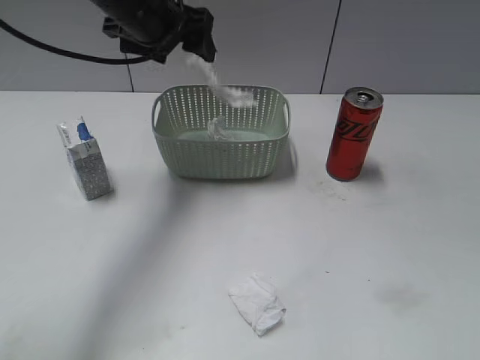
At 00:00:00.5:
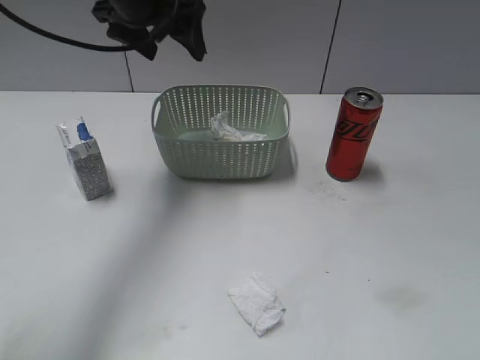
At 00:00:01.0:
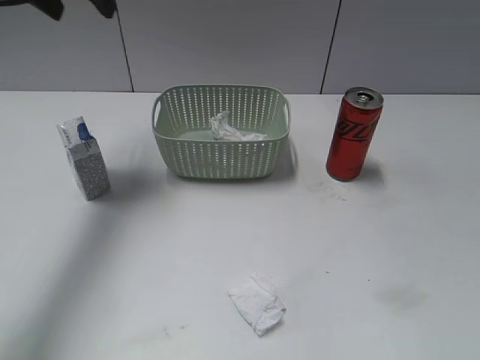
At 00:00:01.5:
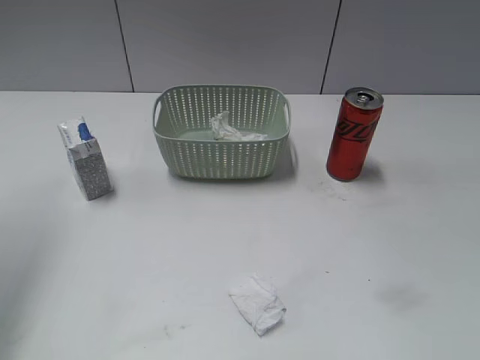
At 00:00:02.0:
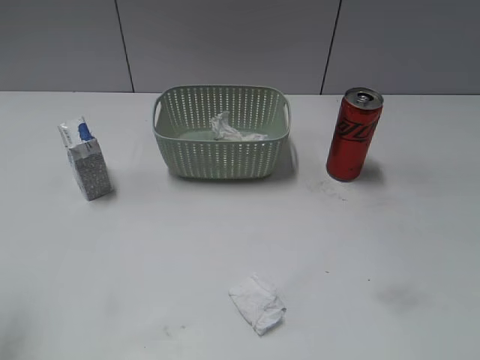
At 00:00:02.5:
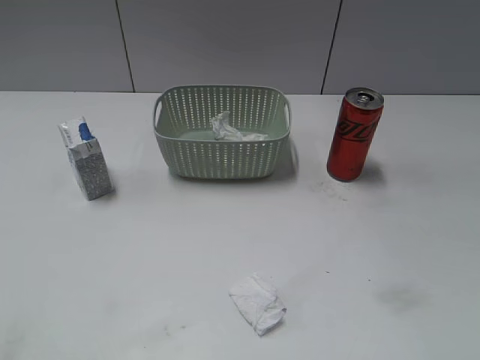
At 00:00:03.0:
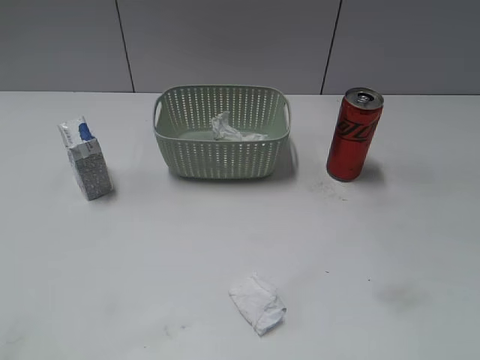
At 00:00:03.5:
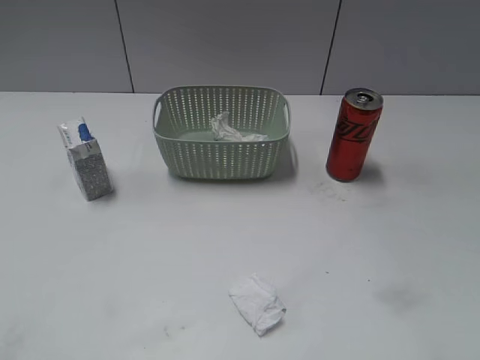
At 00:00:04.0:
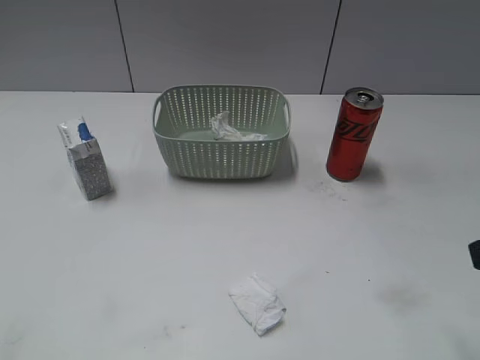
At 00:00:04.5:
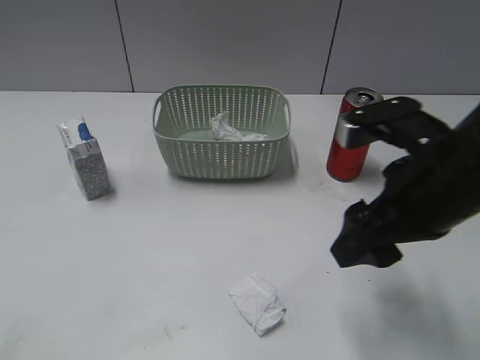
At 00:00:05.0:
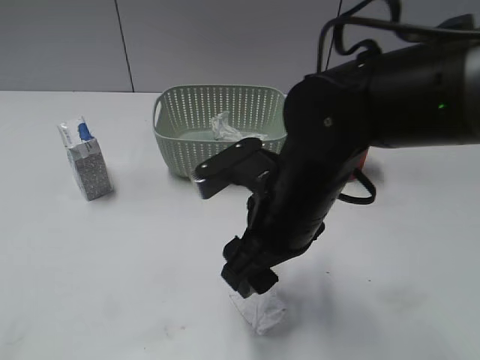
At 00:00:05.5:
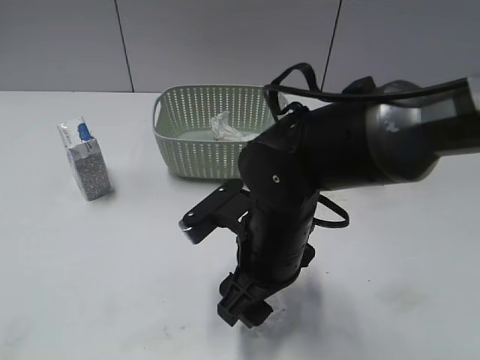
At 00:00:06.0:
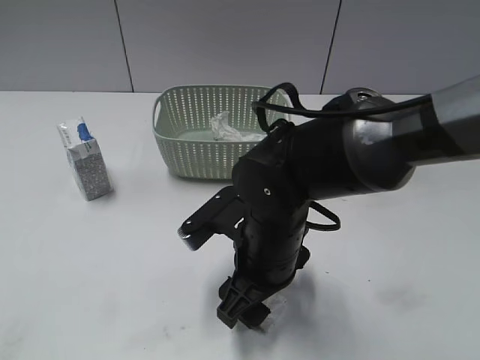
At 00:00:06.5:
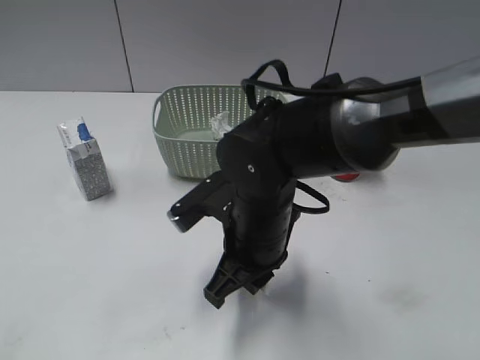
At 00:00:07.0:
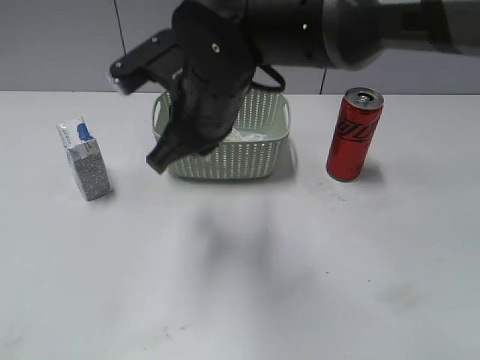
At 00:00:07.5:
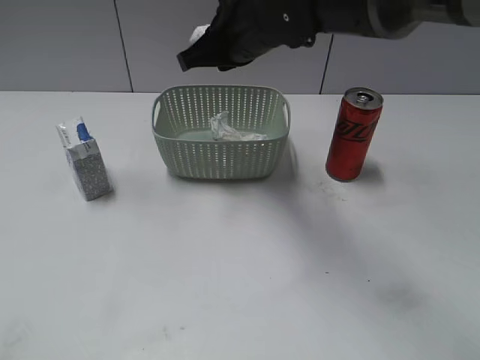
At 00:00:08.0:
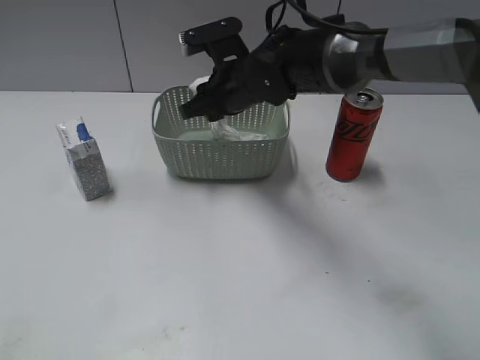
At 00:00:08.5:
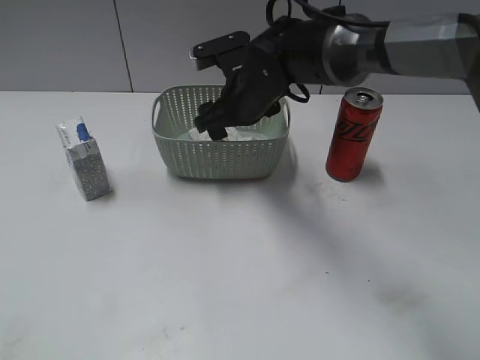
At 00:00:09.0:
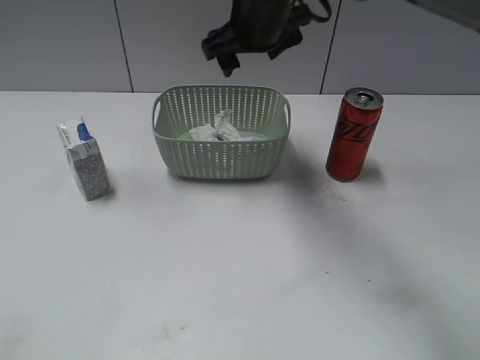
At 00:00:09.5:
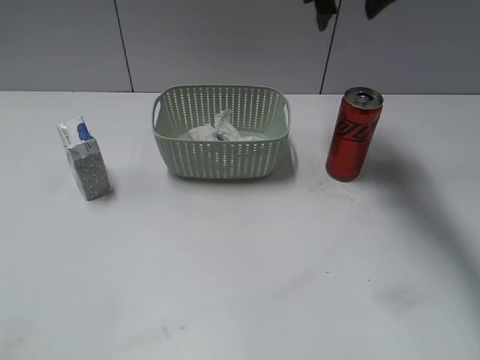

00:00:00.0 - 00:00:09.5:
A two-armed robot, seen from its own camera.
Step, 00:00:00.5 - 00:00:06.5: Grasp the waste paper with right gripper.
Step, 00:00:07.0 - 00:00:08.0: Place the waste paper in the basket with right gripper.
00:00:00.0 - 00:00:02.0: The left gripper heads backward and to the left, covering about 35 cm.
00:00:04.0 - 00:00:05.5: The right gripper moves to the left and downward, some 25 cm.
00:00:05.5 - 00:00:07.5: The right gripper is displaced forward and upward by some 20 cm, and closes its fingers.
00:00:07.5 - 00:00:09.5: The right gripper travels to the right, forward and upward by approximately 15 cm, and opens its fingers.

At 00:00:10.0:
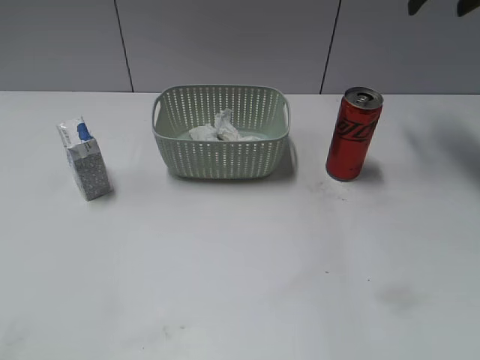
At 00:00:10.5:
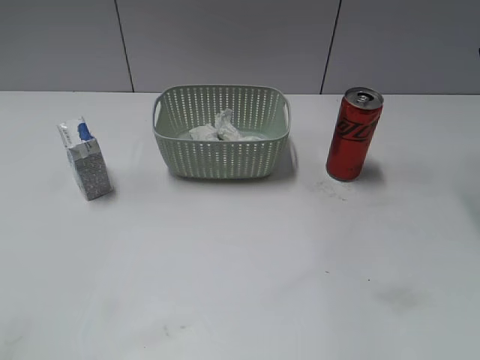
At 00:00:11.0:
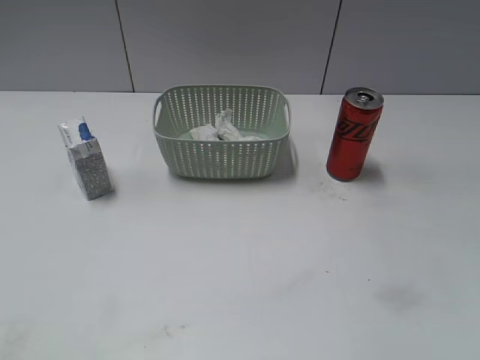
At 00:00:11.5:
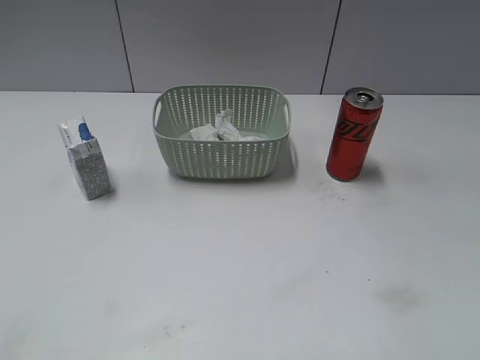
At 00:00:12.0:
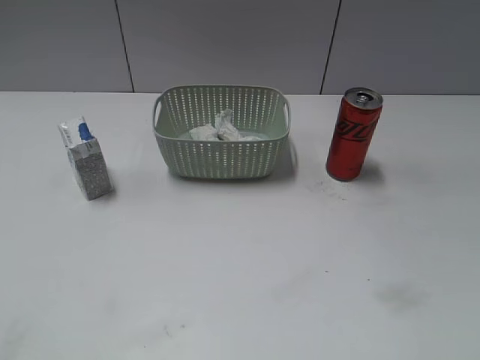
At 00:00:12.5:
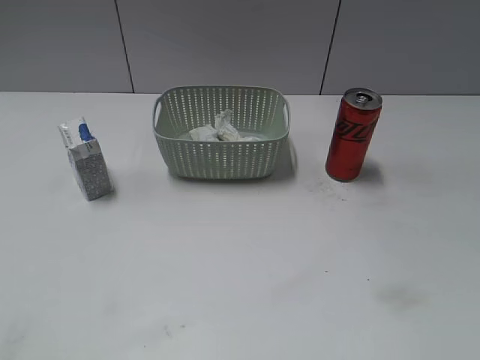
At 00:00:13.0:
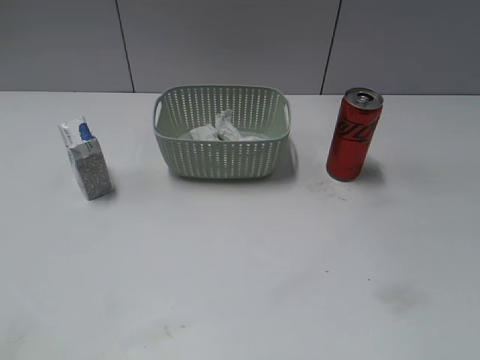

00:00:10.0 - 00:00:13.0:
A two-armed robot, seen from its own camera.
00:00:10.0 - 00:00:11.5: The right gripper heads backward, covering about 35 cm.
